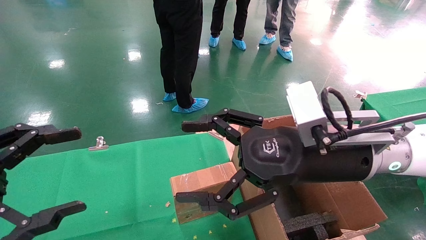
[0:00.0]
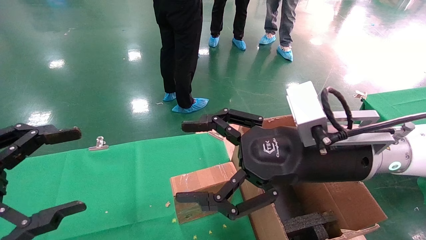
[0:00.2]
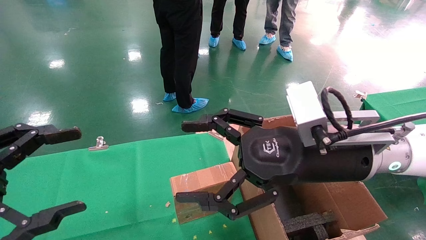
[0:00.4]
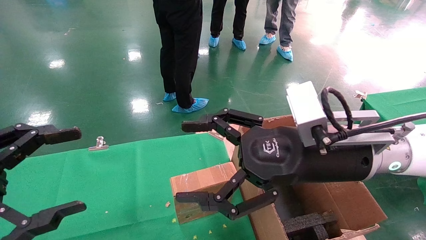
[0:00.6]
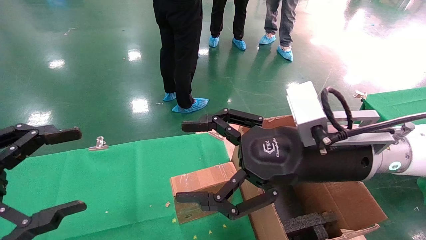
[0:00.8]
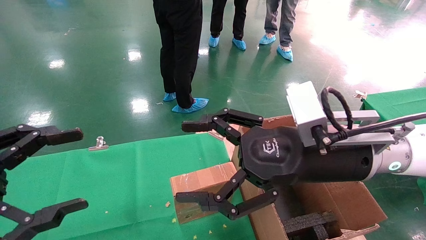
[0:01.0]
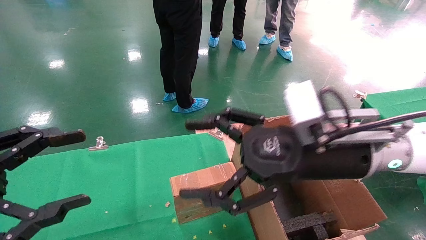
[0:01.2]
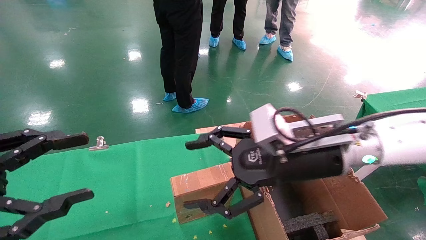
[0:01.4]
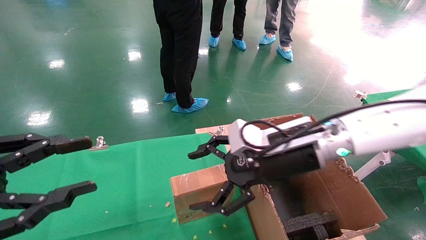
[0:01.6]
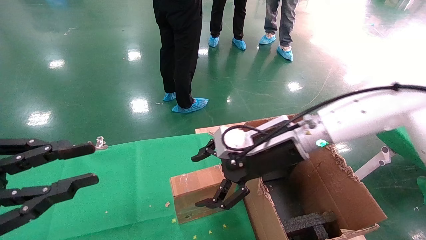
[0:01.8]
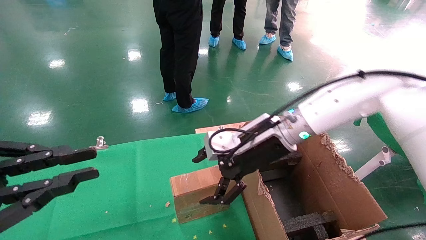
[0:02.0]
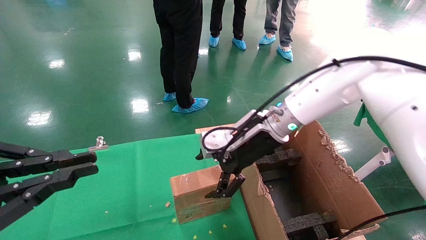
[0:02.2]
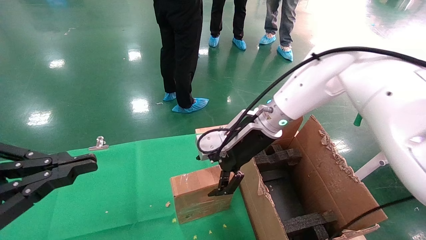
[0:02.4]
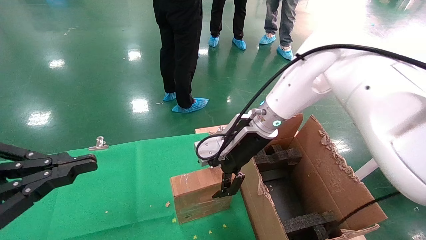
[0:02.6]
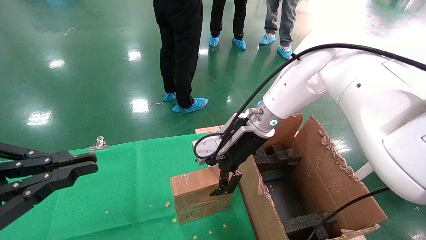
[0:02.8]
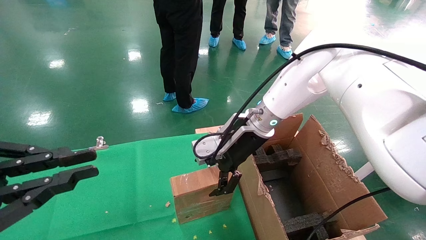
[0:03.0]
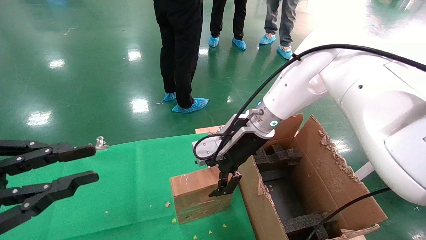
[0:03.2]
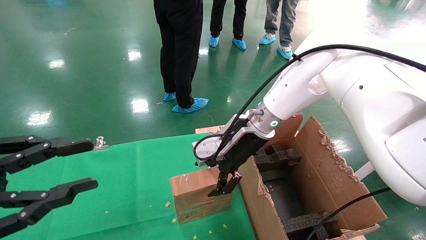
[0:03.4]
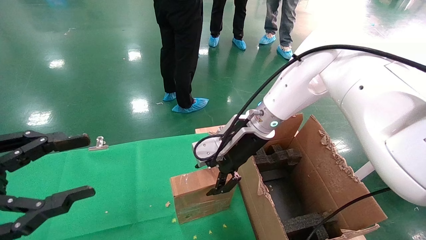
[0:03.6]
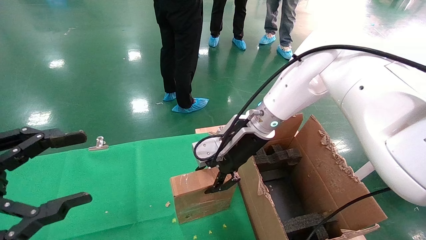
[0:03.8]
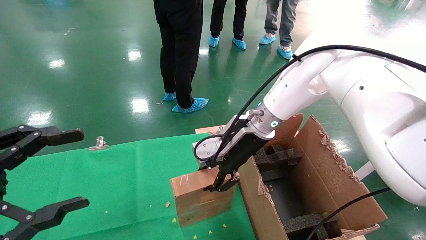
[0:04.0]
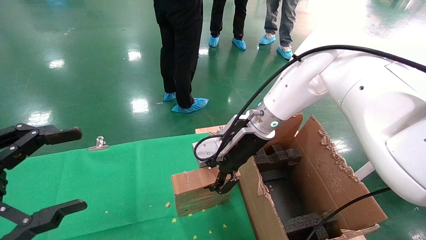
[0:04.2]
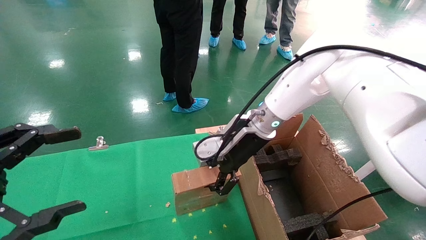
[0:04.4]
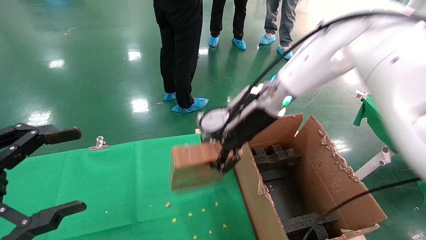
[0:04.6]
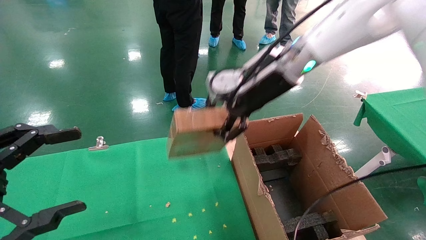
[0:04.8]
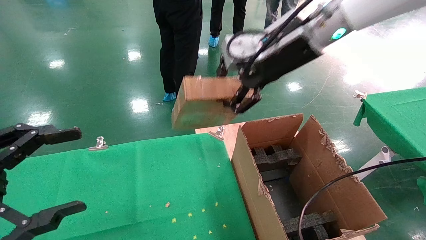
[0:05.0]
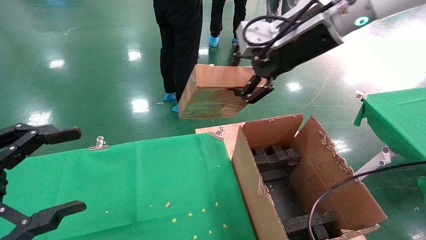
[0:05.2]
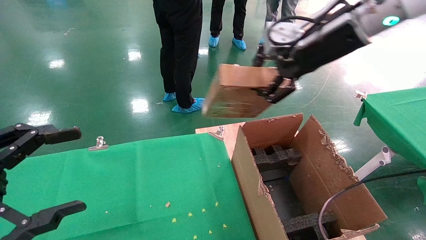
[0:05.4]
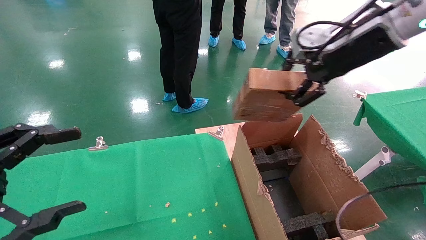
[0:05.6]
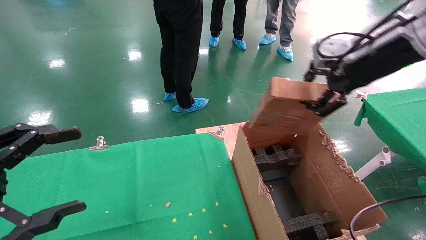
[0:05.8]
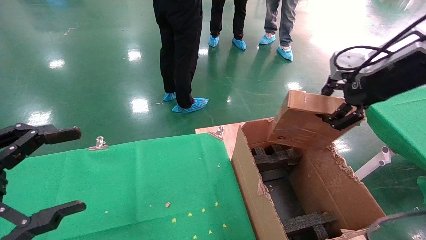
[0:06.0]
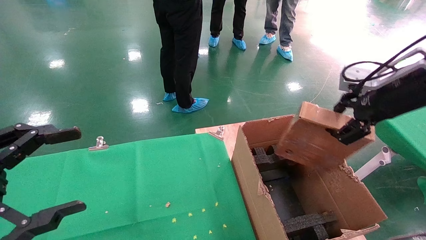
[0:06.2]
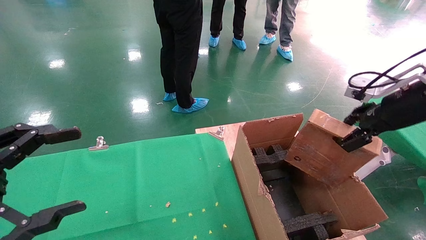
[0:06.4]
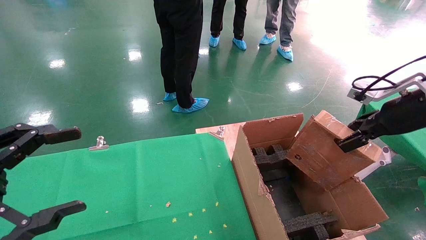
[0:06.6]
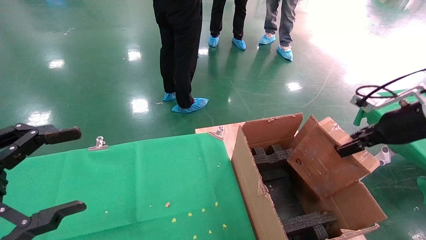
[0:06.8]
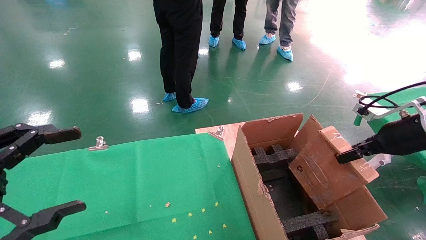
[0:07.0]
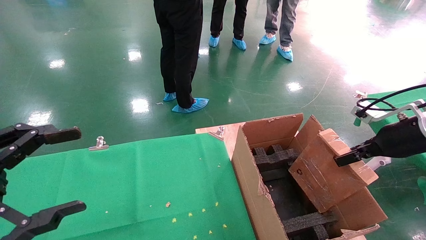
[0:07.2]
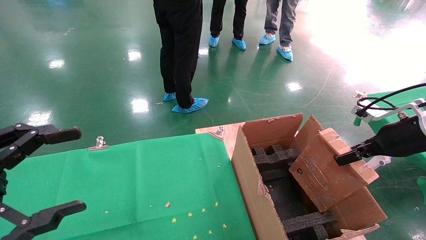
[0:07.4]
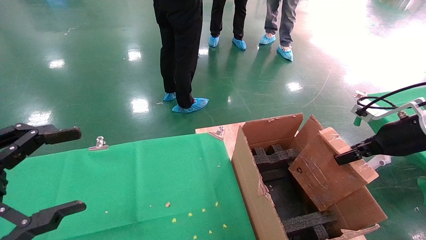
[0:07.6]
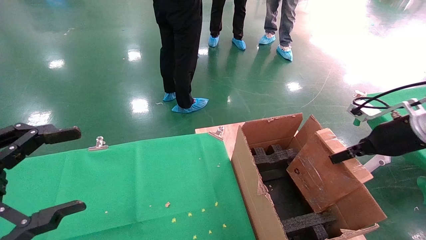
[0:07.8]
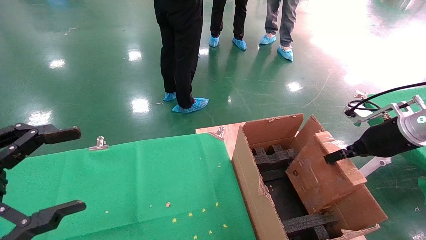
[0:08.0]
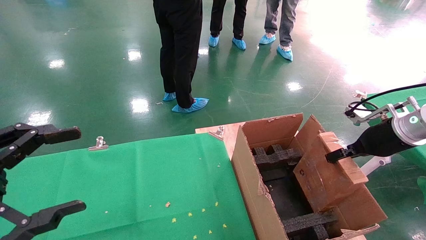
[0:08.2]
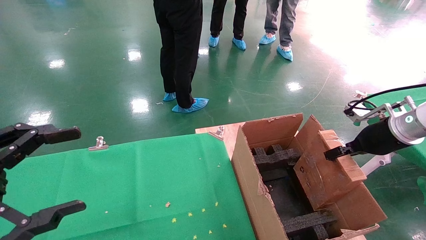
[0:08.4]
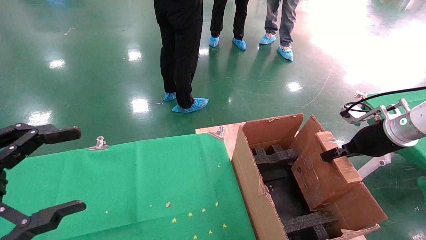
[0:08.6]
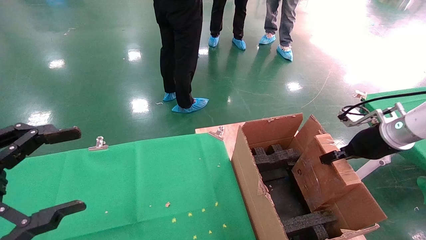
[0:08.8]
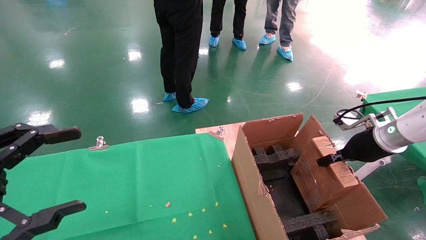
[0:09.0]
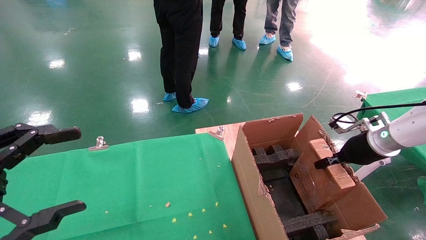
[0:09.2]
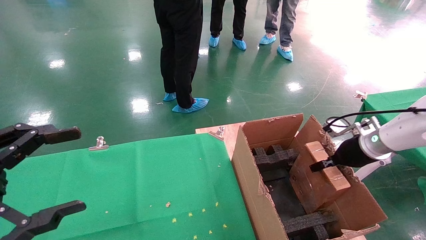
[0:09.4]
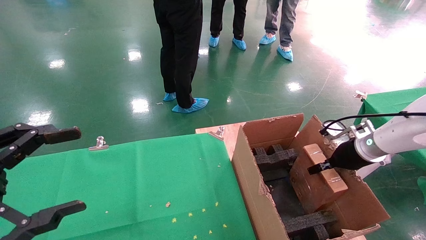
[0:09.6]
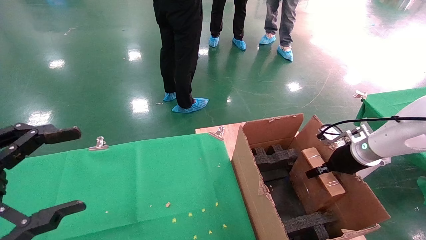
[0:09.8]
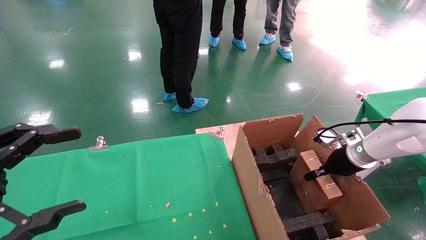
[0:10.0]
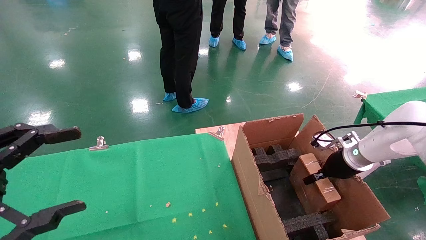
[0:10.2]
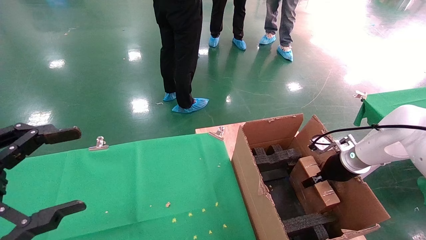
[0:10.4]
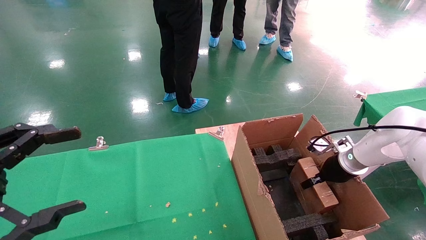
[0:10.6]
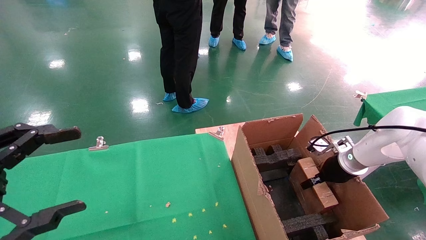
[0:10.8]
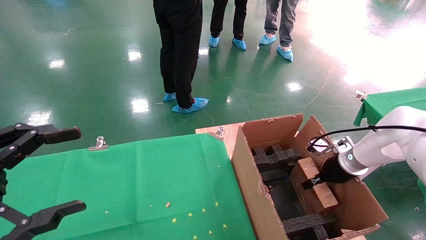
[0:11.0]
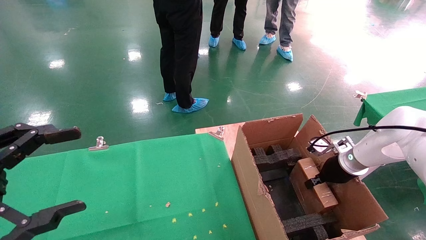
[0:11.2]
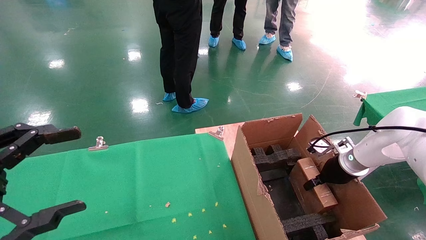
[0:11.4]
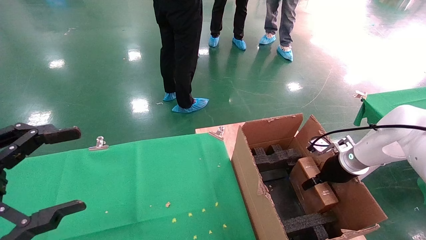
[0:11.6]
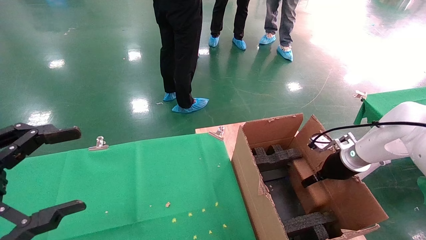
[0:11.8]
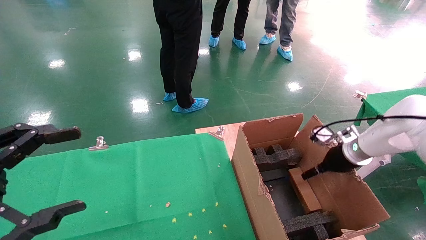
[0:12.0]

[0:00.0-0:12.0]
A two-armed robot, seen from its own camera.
Task of the whole recording: using a robotic arm to pick up a cardboard box and palace it the carton.
Step, 0:01.2 to 0:04.2: Pick up the mouse and the power cord paper box.
0:00.0 to 0:01.6: The right gripper goes about 5 cm forward.
0:01.6 to 0:03.0: The left gripper closes, while the right gripper moves forward, approximately 10 cm.
0:03.0 to 0:04.4: The right gripper closes, while the left gripper opens its fingers.
0:04.4 to 0:06.0: The right gripper goes some 25 cm to the right, upward and backward.
0:06.0 to 0:07.6: The right gripper moves downward and to the right, some 15 cm.
0:07.6 to 0:09.0: The right gripper goes some 5 cm forward.
0:09.0 to 0:10.4: The right gripper goes about 10 cm downward.
0:10.4 to 0:12.0: The right gripper shifts by about 5 cm, and opens up.

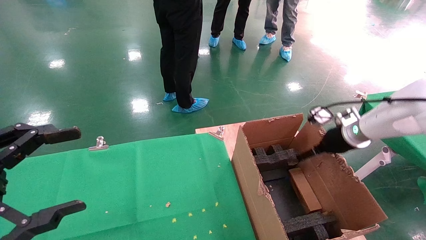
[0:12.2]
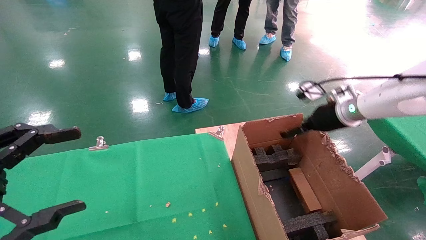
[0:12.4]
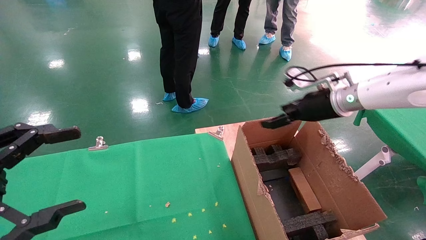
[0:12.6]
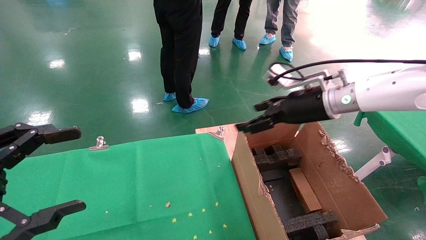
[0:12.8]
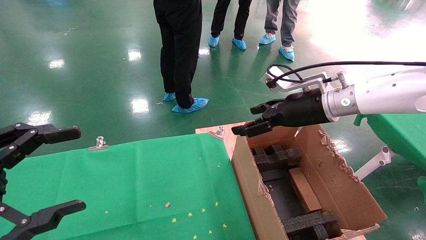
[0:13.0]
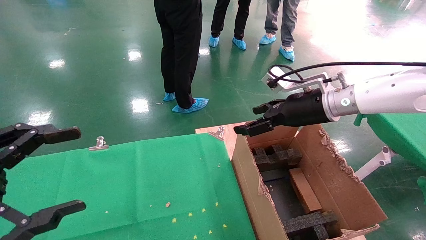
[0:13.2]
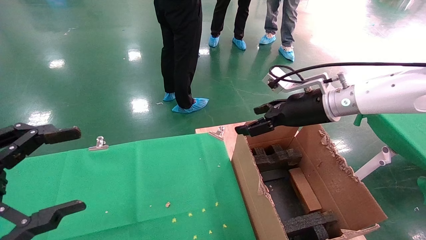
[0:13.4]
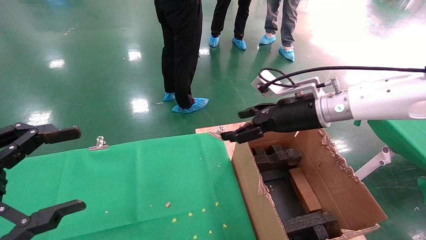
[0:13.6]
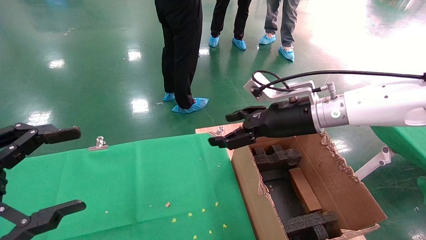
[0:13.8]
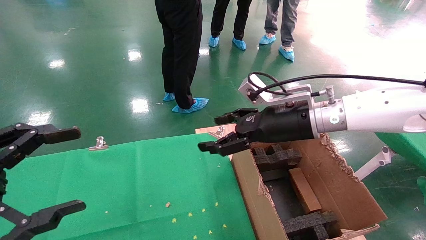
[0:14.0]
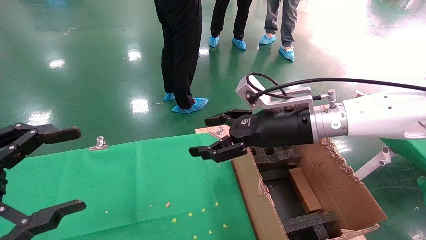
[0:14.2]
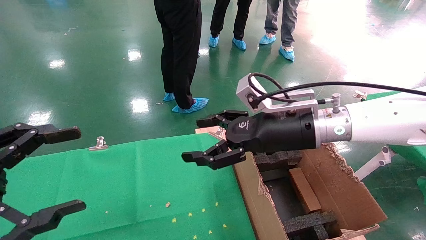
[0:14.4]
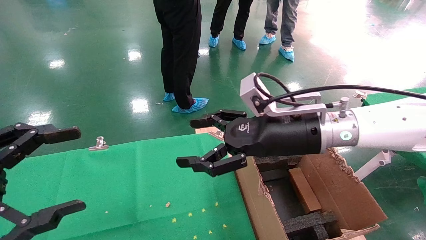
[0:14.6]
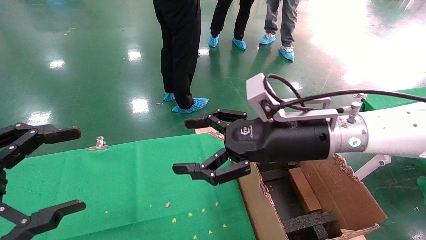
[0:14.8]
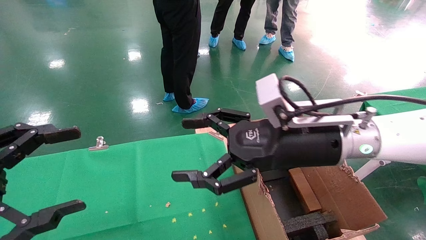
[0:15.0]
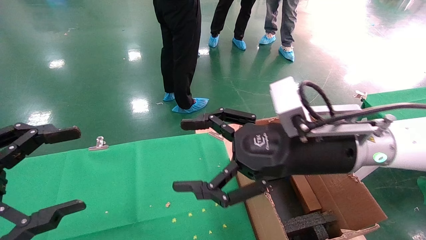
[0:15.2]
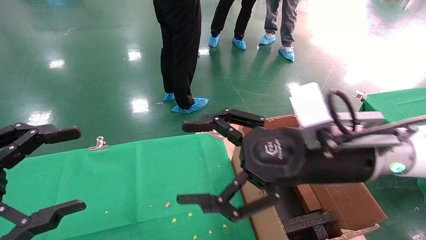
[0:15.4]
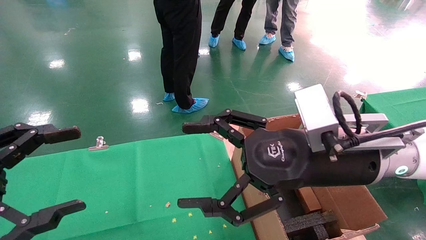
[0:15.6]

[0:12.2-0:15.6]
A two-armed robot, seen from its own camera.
Task of the whole recording: using a robotic arm to pick up a cardboard box and palace it the carton.
0:12.2 to 0:13.8: The right gripper heads to the left and upward, covering some 15 cm.
0:13.8 to 0:15.6: The right gripper is displaced backward by about 15 cm.
